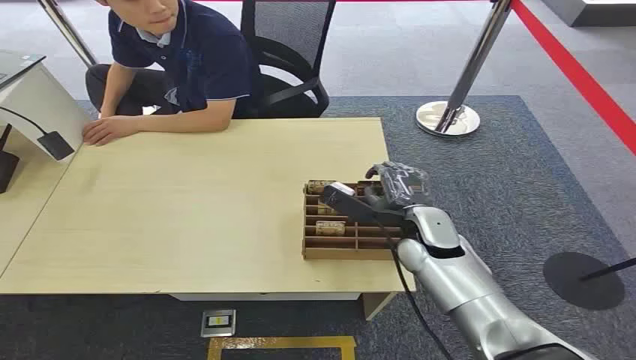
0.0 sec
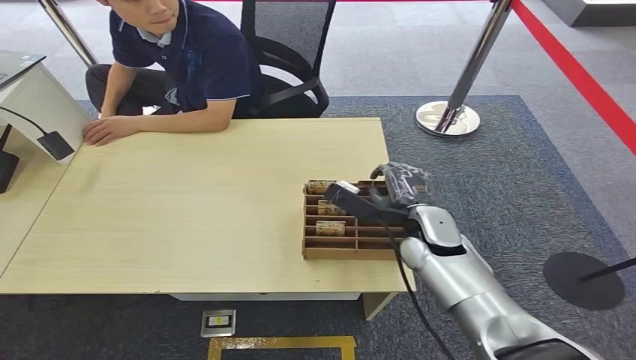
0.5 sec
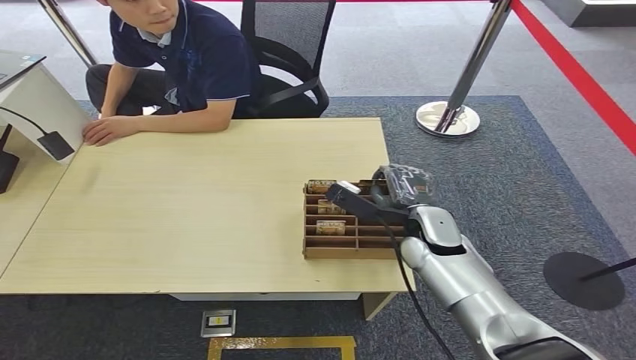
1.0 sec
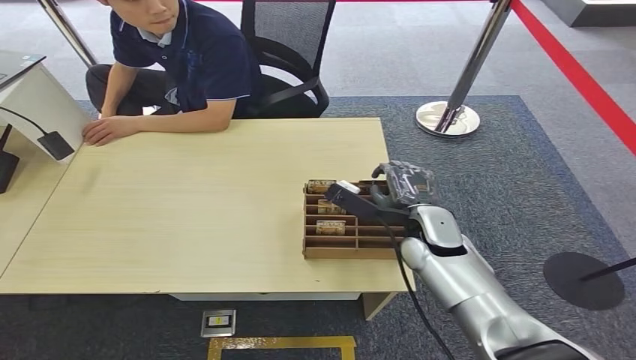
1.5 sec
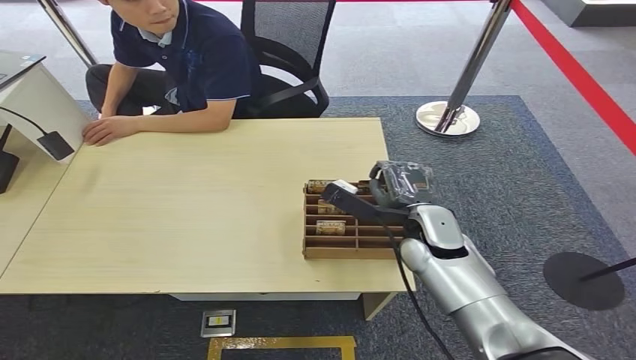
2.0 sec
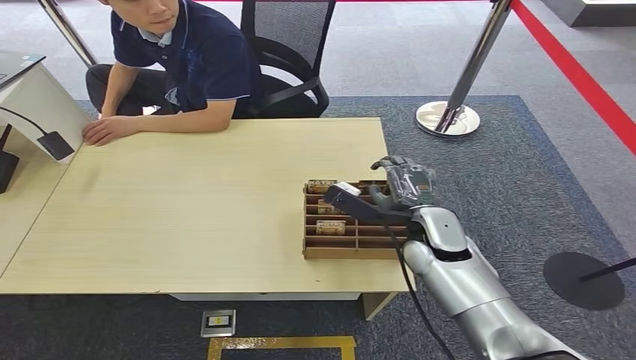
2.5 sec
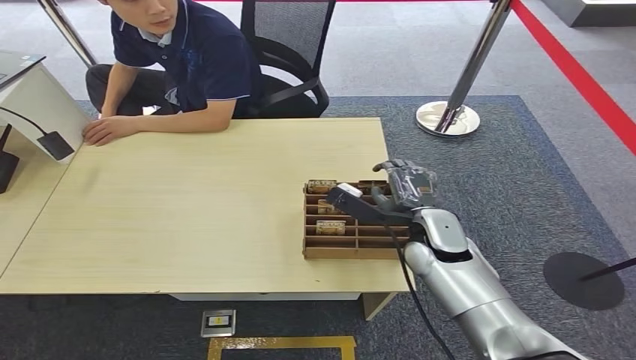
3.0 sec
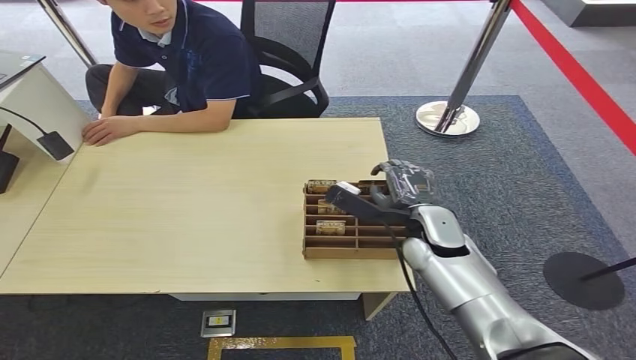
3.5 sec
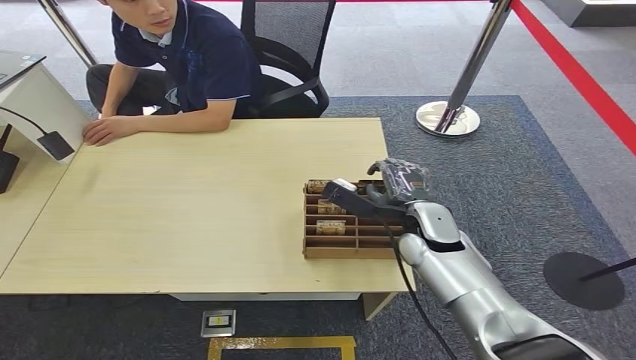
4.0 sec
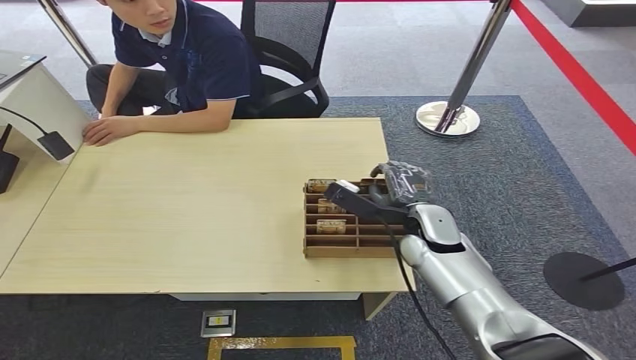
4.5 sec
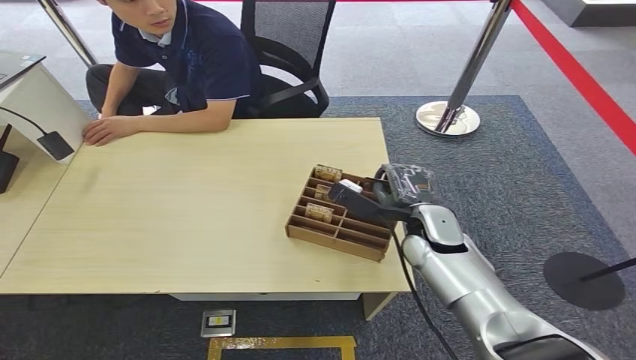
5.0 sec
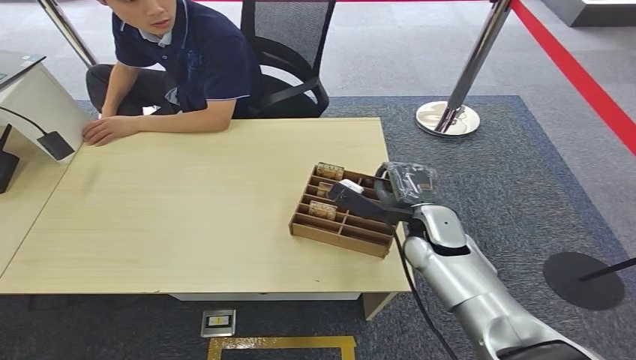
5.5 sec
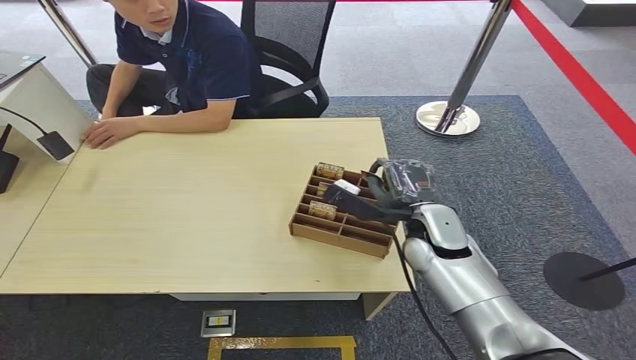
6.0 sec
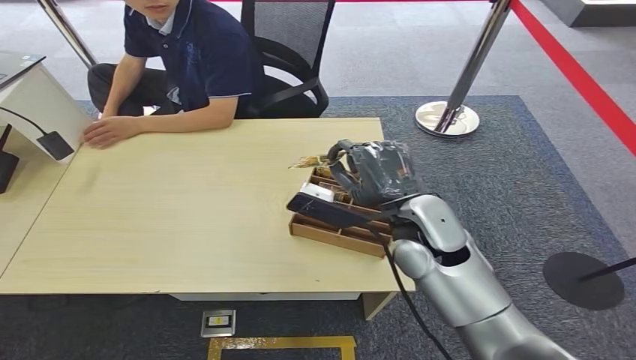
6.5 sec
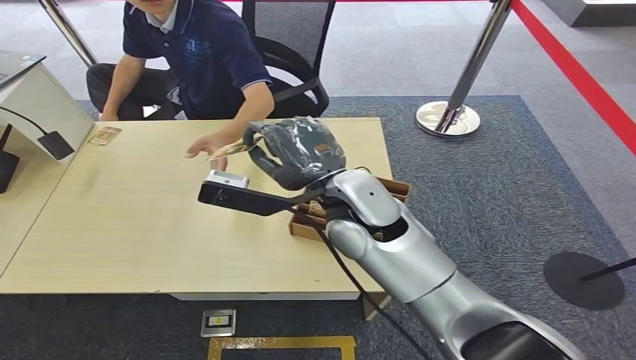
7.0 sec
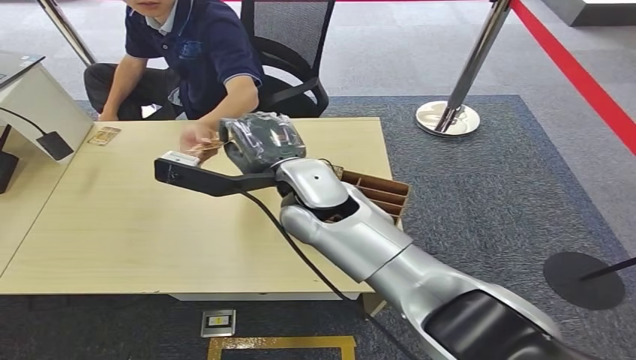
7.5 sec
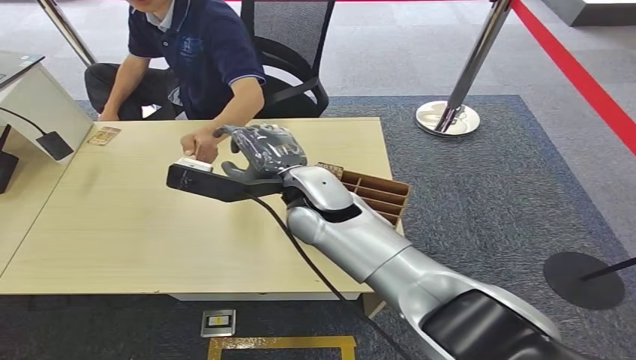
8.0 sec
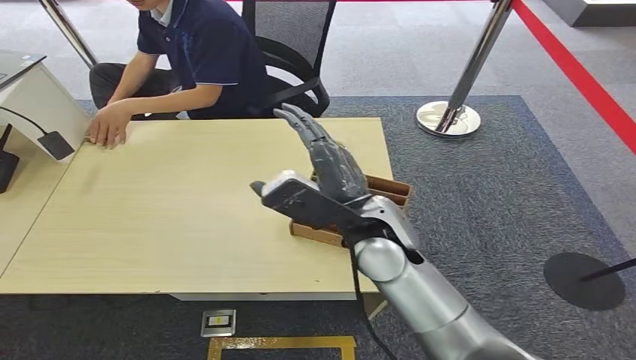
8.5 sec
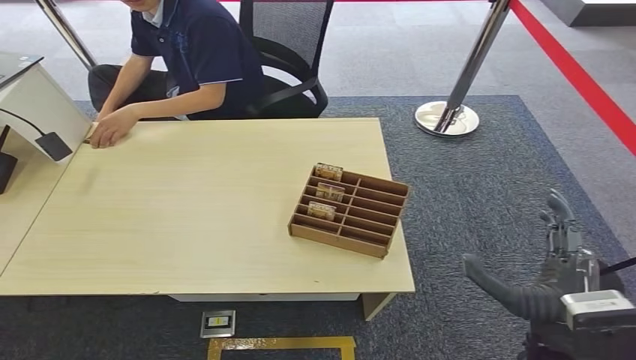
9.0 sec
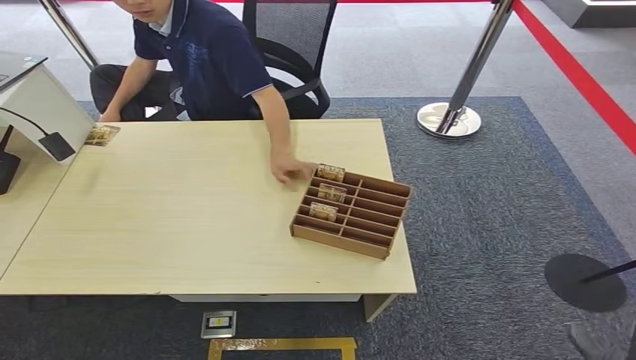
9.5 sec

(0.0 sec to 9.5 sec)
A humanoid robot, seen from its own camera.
Step, 0.0 sec - 6.5 sec: Pick up the key card from the card box.
Step, 7.0 sec - 9.5 sec: Hand the key card to the target.
2.0 sec - 4.0 sec: Neither hand changes place.
4.0 sec - 5.5 sec: Both hands stay put.
5.5 sec - 7.5 sec: The right hand goes some 25 cm to the left and upward.
